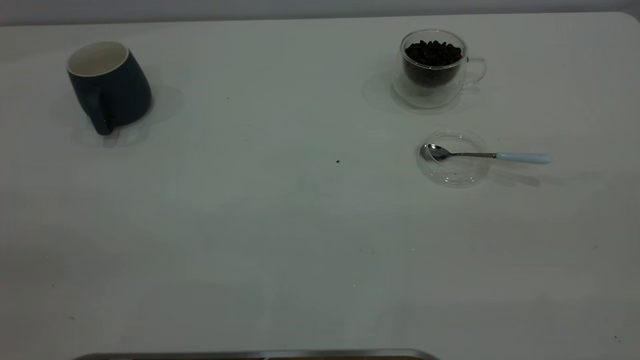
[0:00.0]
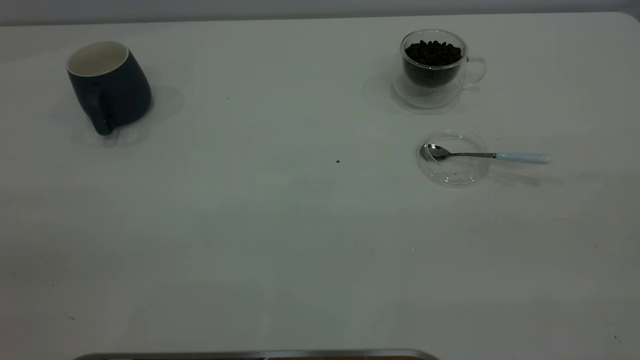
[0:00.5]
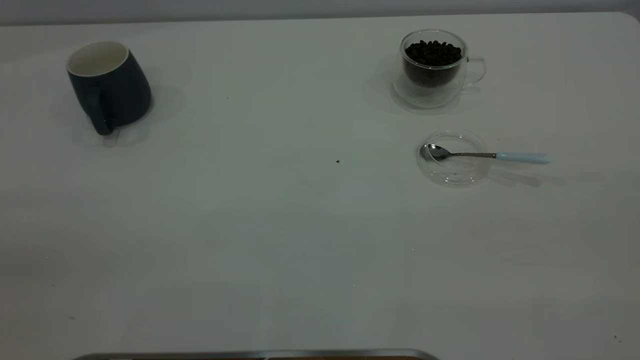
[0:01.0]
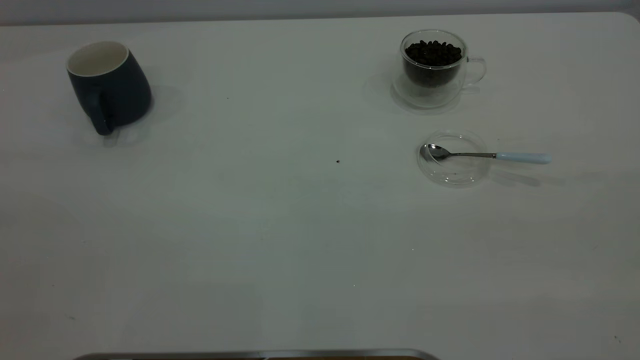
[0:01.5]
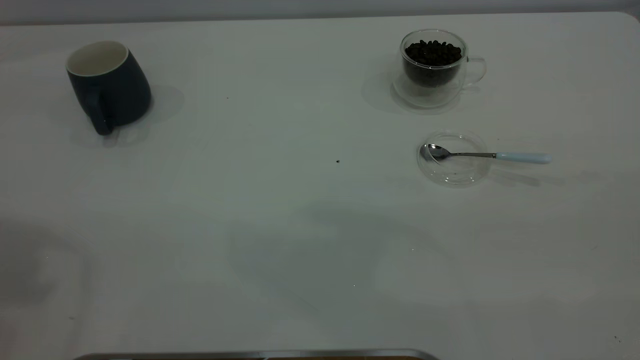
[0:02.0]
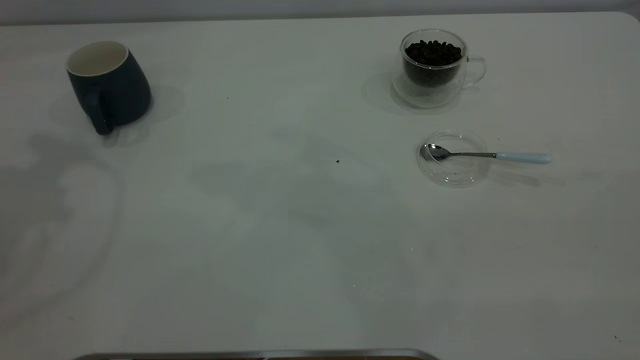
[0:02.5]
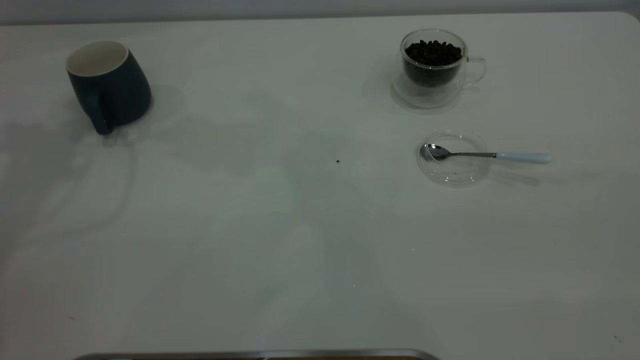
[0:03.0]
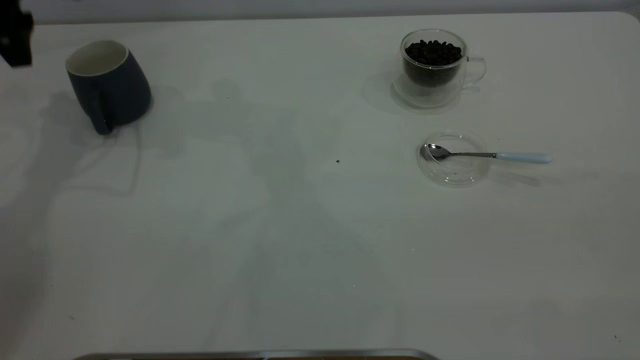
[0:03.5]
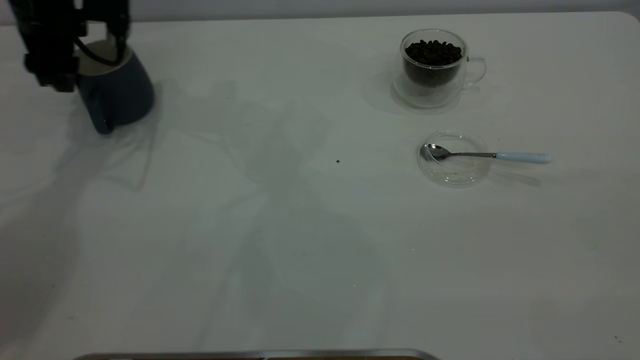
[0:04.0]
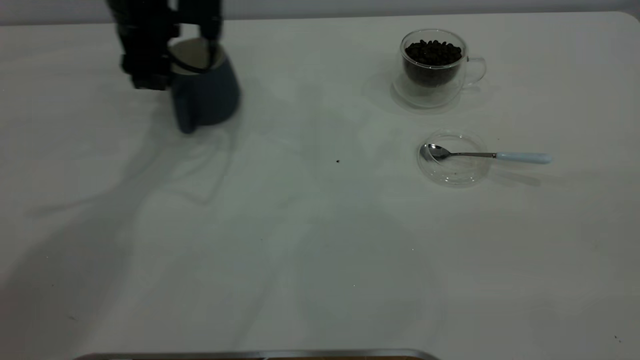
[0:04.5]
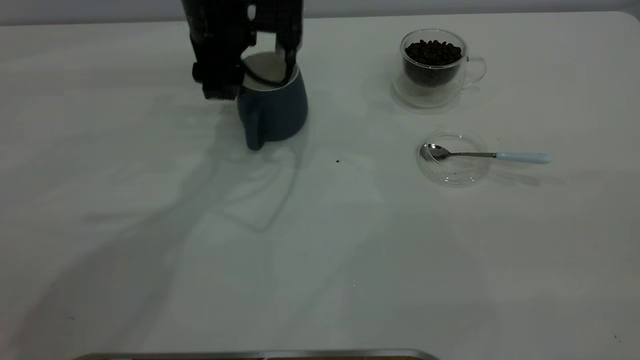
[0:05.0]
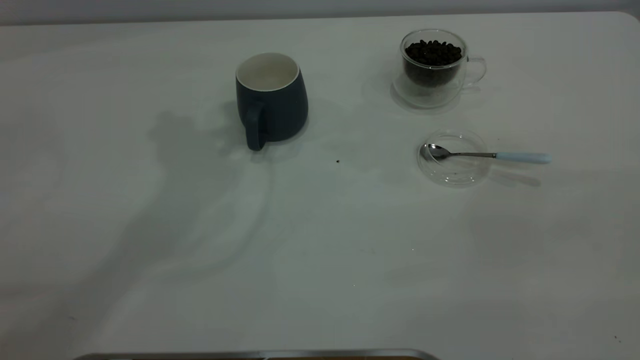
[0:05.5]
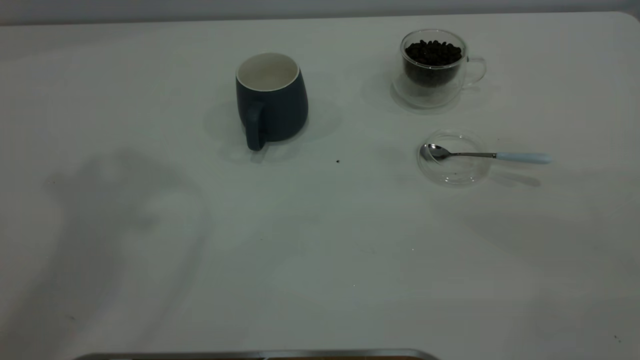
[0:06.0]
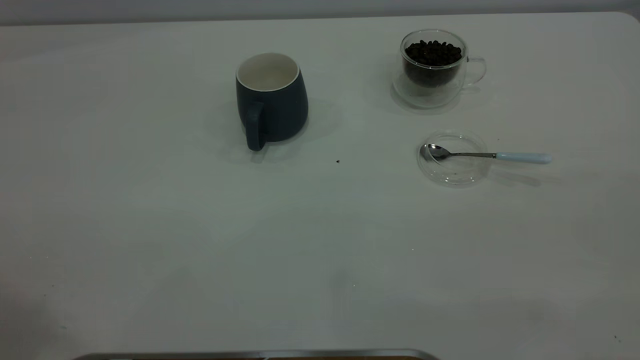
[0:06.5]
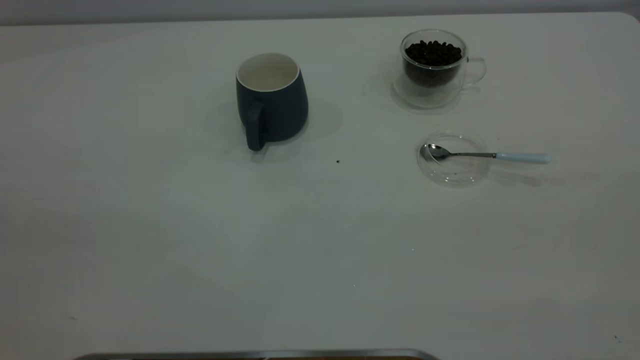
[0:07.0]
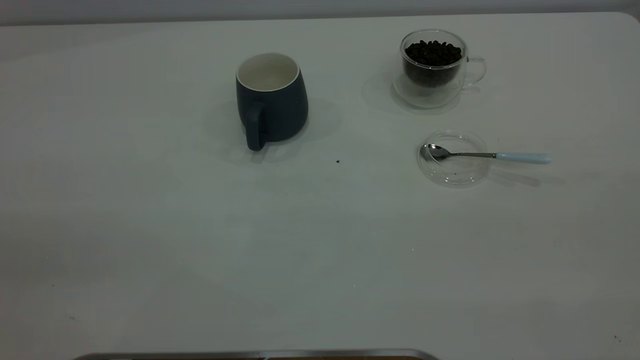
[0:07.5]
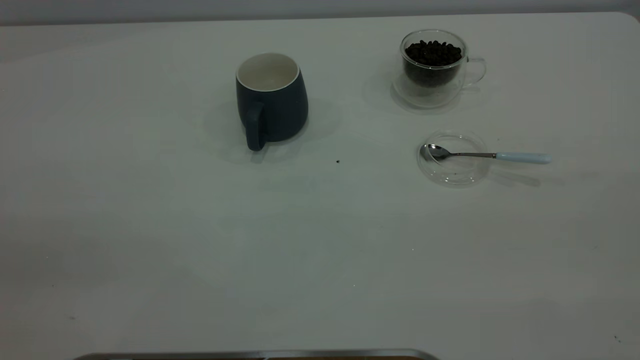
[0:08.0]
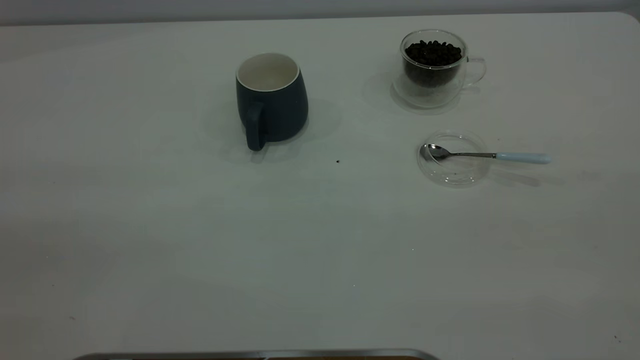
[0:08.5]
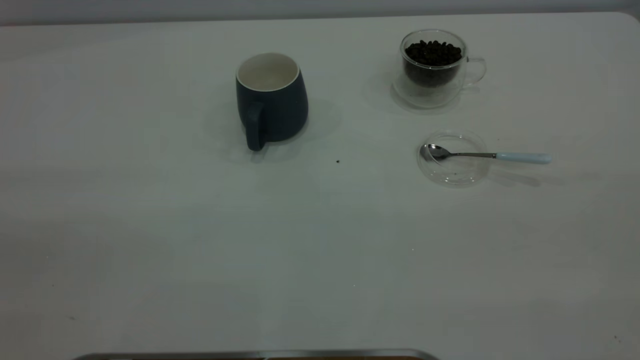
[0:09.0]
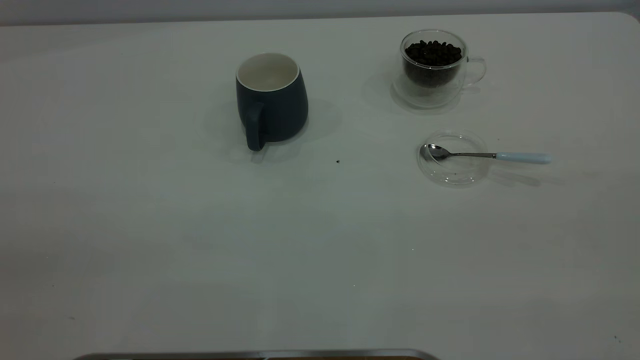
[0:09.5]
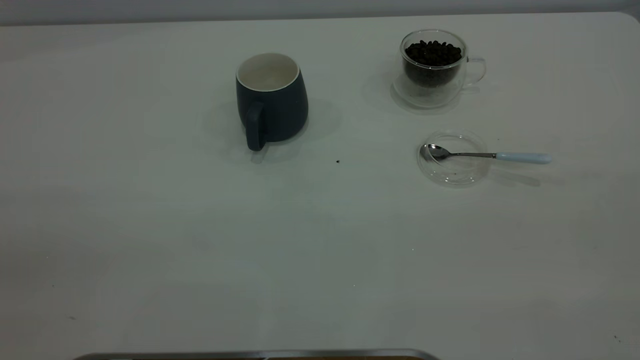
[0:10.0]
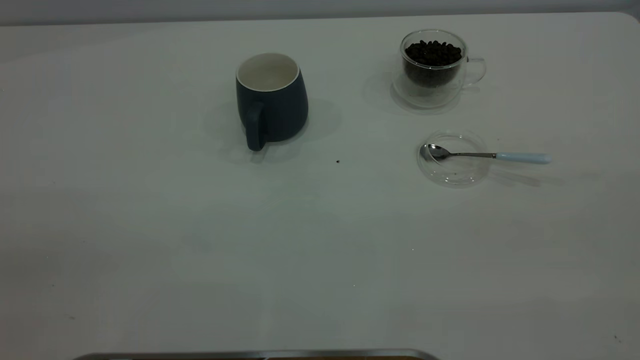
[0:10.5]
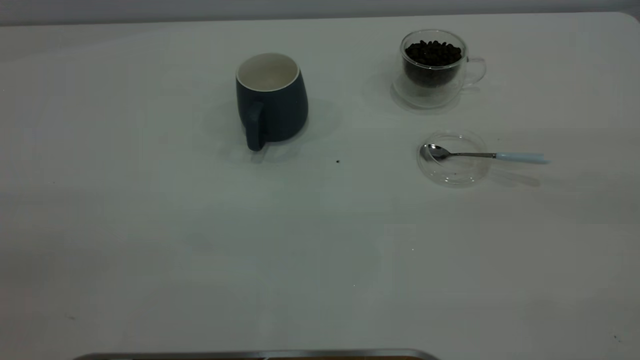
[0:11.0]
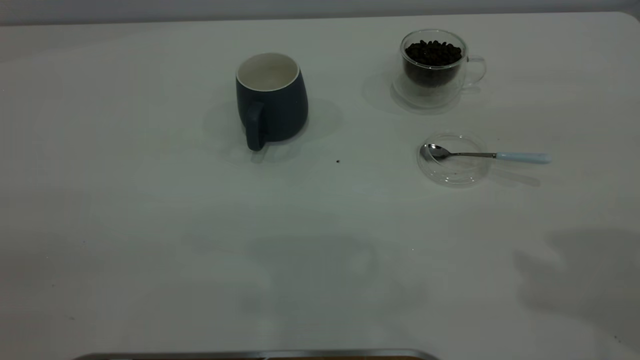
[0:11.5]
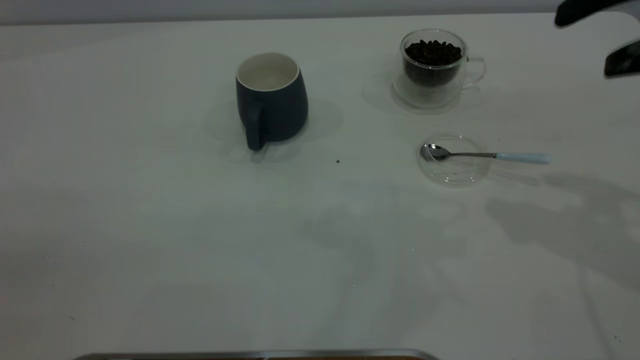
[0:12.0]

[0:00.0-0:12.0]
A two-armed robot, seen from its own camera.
Task of the whole recording: the left gripper place the grey cup in the center of the table, the right gripper take the blue spoon from the cup lid and scoop out the coffee beans from the coffee cup and put them into the grey cup, the right gripper put the spoon back into the cup lid.
Step, 0:00.0 to 0:05.0: Move the cup to the center of view.
0:02.0 to 0:04.0: The left gripper travels downward and forward by approximately 40 cm.
0:04.0 to 0:06.0: The left gripper heads upward and backward, covering roughly 40 cm.
0:10.0 to 0:12.0: The right gripper moves forward, roughly 25 cm.

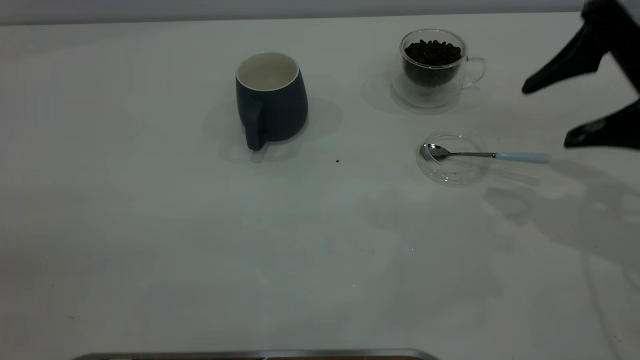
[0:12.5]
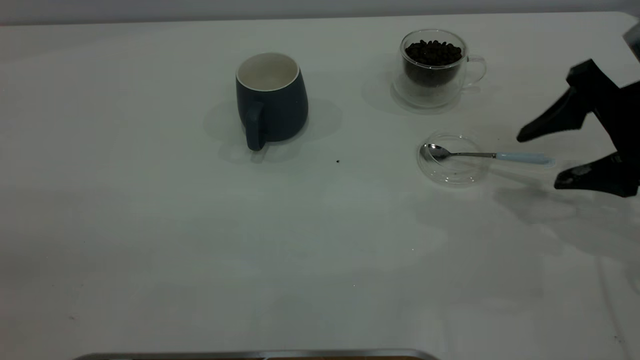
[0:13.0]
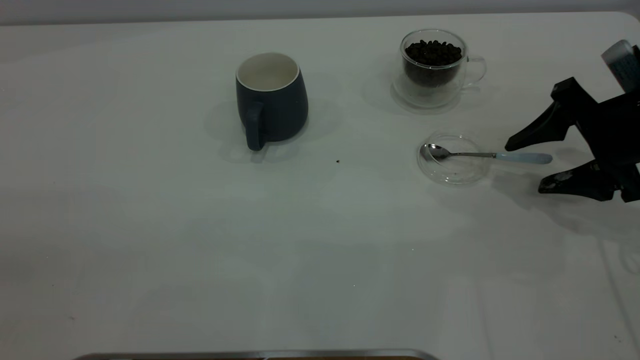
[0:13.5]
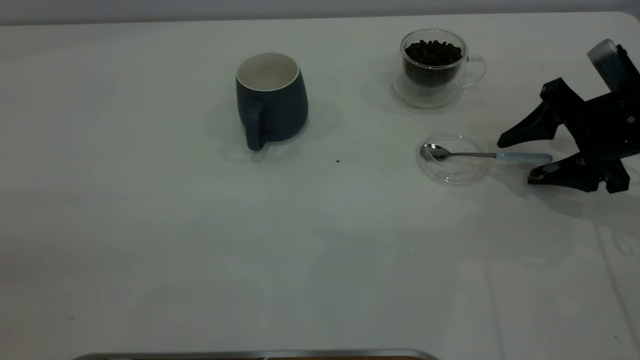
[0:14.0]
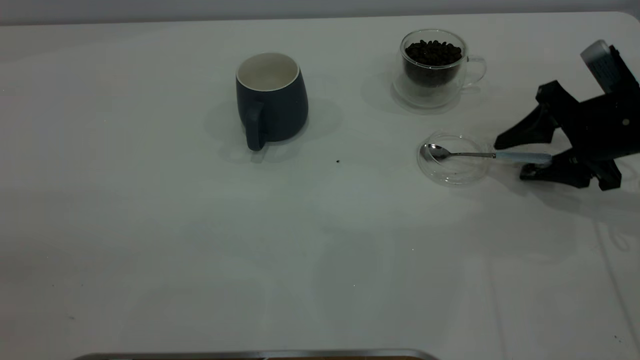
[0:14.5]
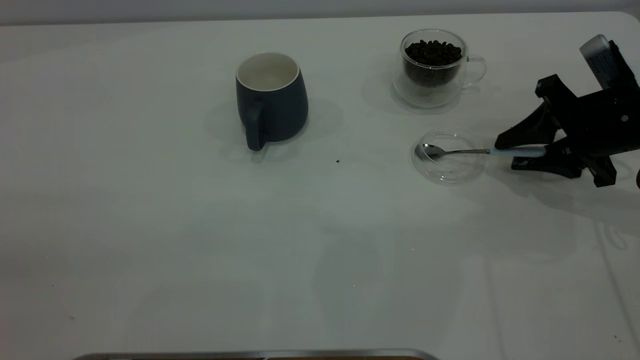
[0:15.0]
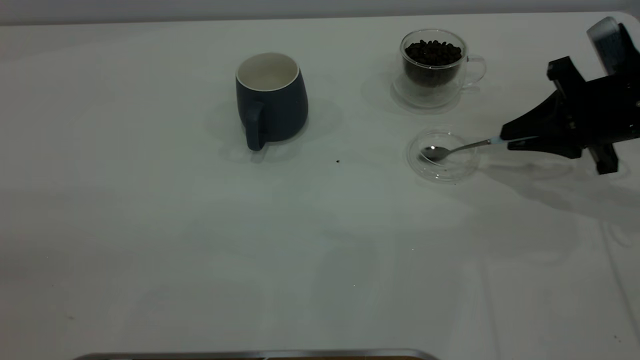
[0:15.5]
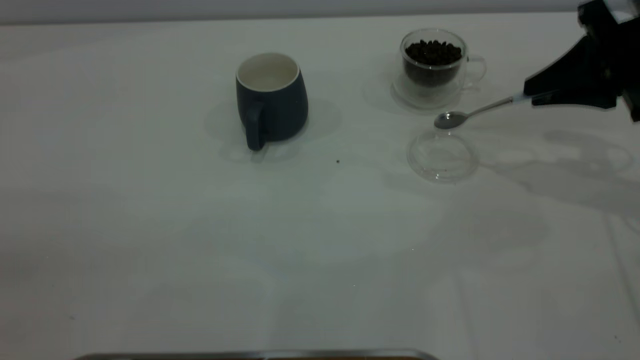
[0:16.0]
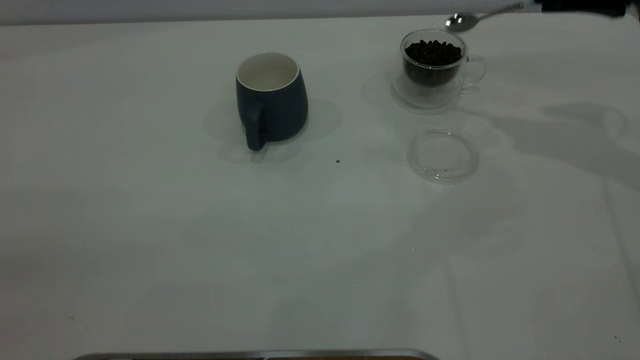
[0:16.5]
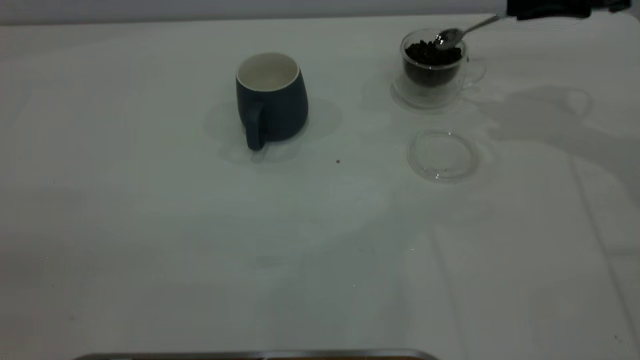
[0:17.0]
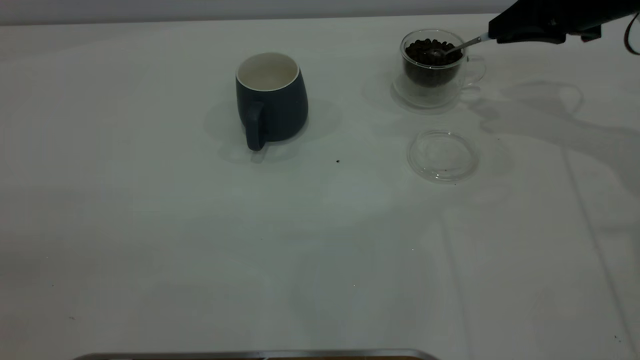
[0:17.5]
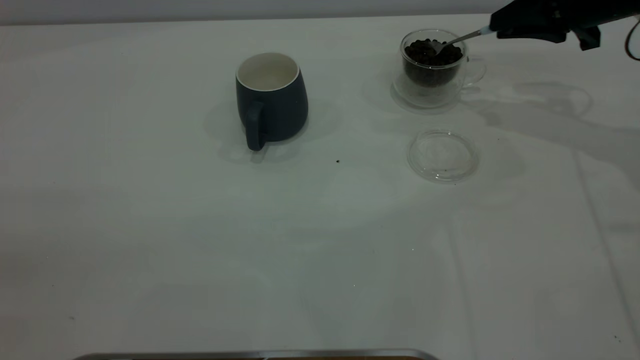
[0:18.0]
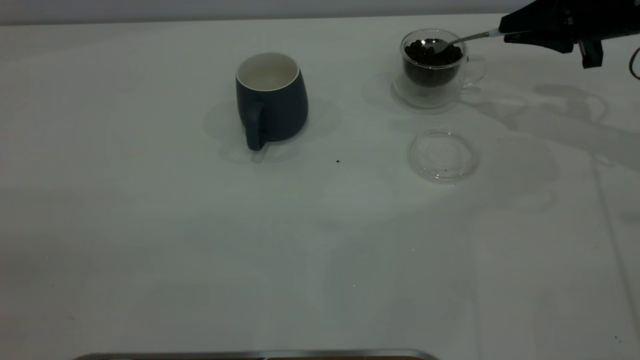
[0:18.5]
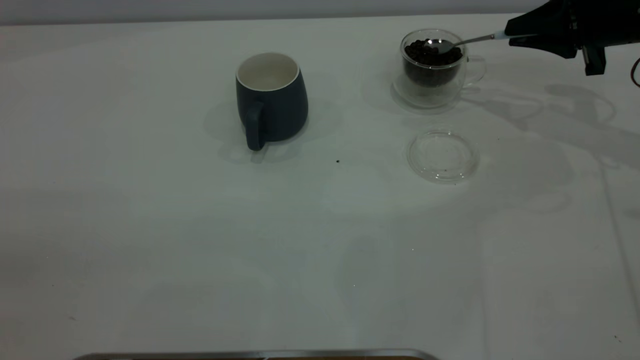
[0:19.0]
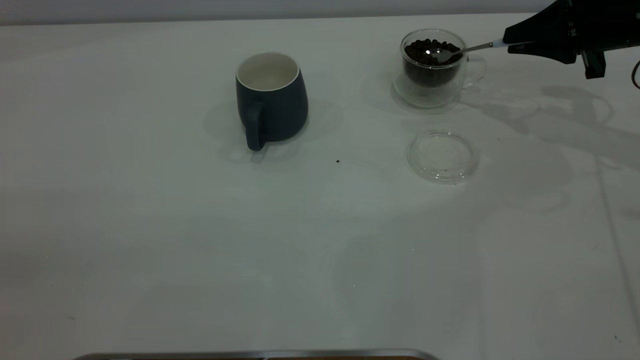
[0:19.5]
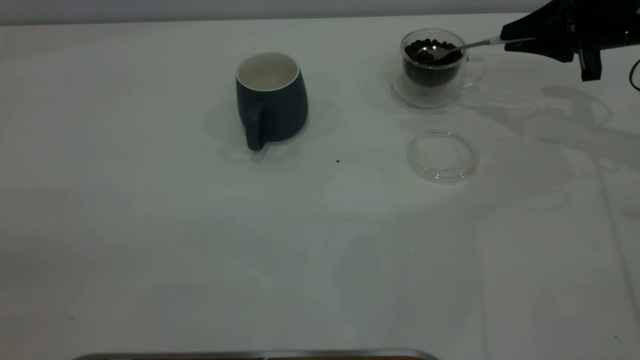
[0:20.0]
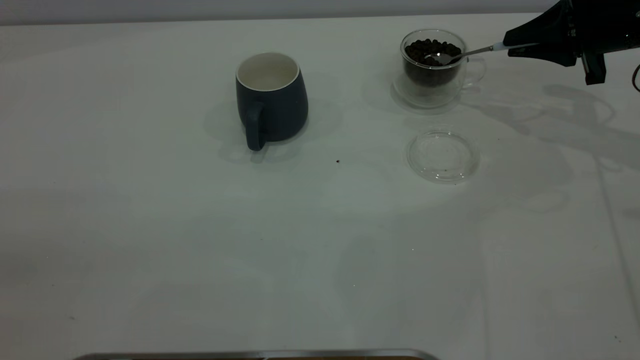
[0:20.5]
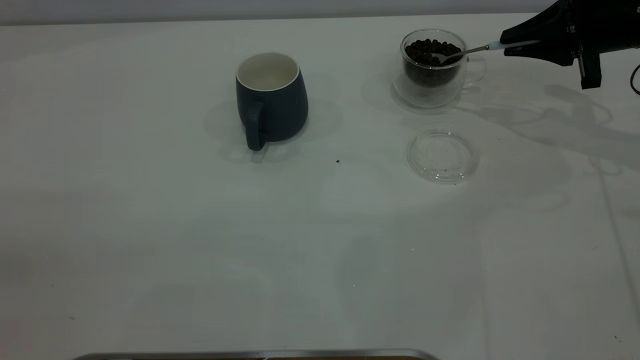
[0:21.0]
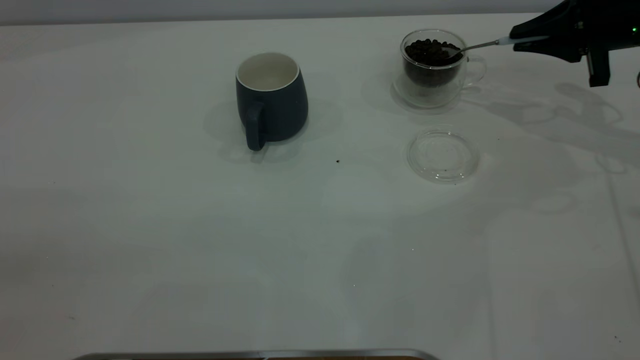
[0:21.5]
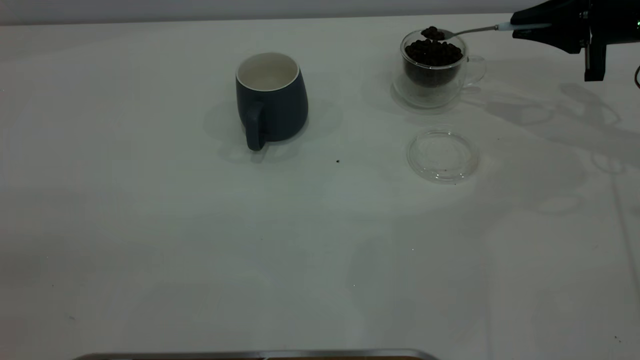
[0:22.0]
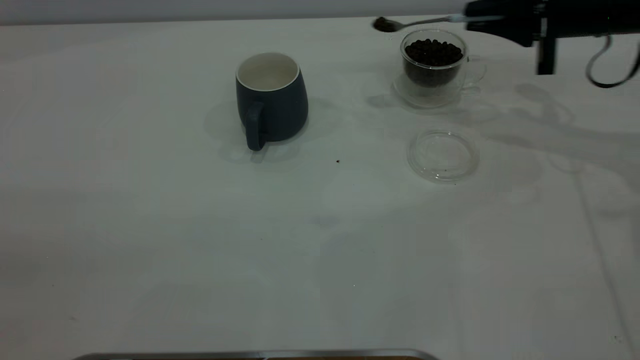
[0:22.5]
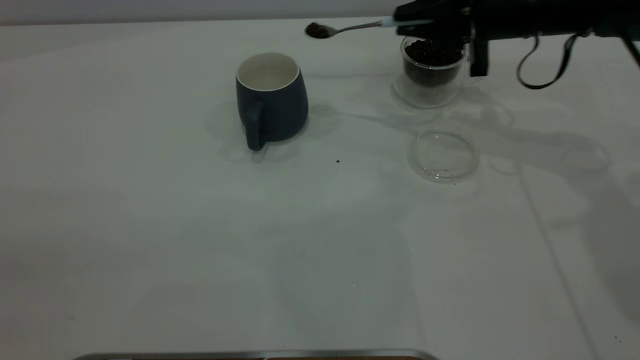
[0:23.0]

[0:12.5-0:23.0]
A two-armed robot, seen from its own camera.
Task of the whole recording: the left gripper place the grey cup in the center of the table, the right gripper take the blue spoon from the cup lid and scoop out the coffee beans from the coffee cup and put them into the grey cup, the right gripper put the spoon back into the cup lid.
Step, 0:12.5 to 0:16.0: Pick up the spoon.
0:12.5 to 0:14.5: The right gripper travels downward and forward by approximately 10 cm.
0:14.5 to 0:16.5: The right gripper is displaced upward and forward by about 15 cm, and closes its fingers.
0:16.5 to 0:19.0: The right gripper heads downward, covering some 10 cm.
0:19.0 to 0:21.0: The grippers make only small movements.
0:21.0 to 0:23.0: The right gripper shifts roughly 10 cm to the left.
